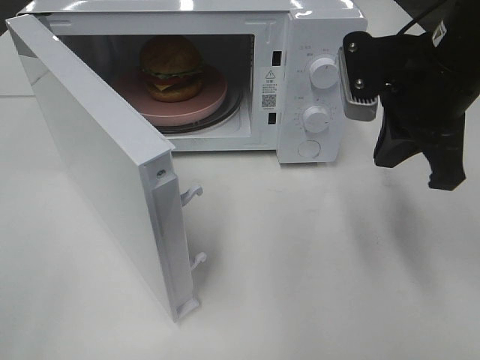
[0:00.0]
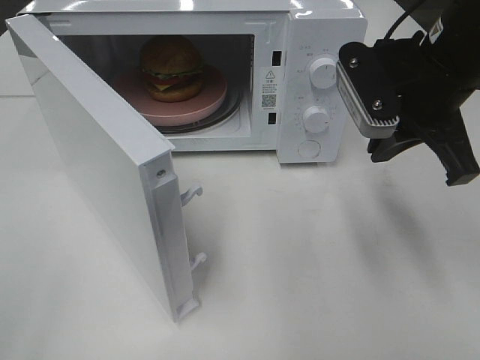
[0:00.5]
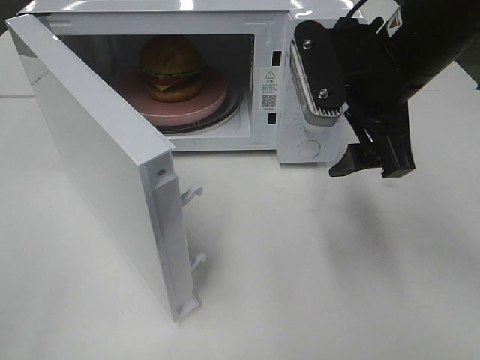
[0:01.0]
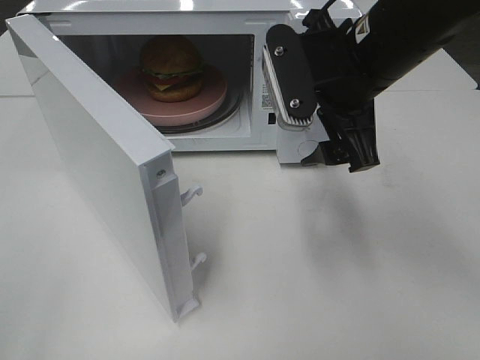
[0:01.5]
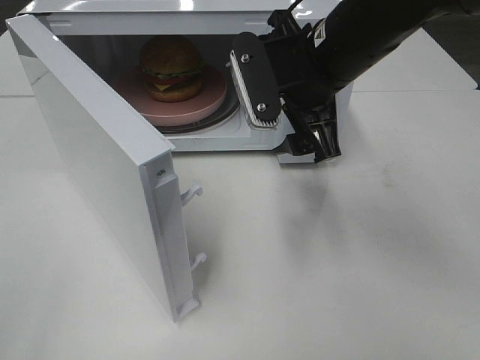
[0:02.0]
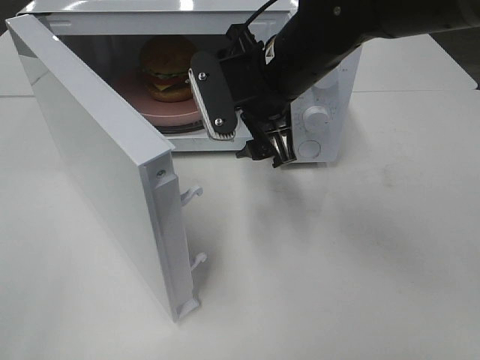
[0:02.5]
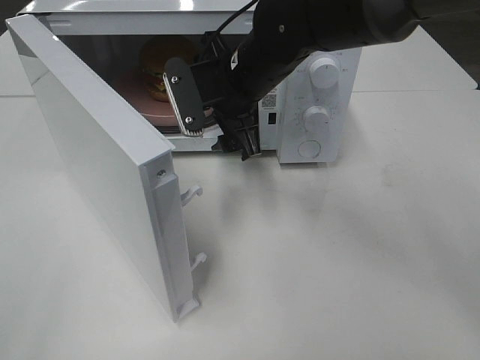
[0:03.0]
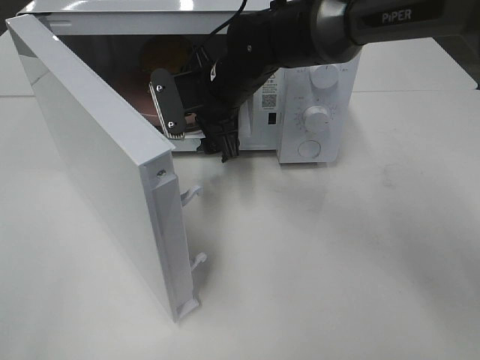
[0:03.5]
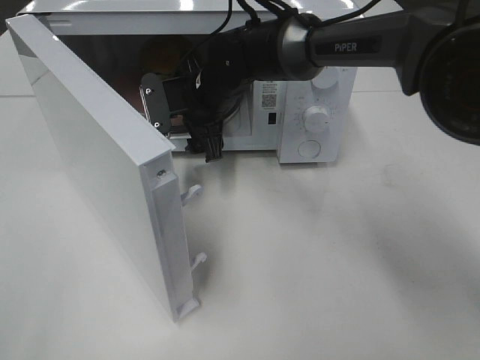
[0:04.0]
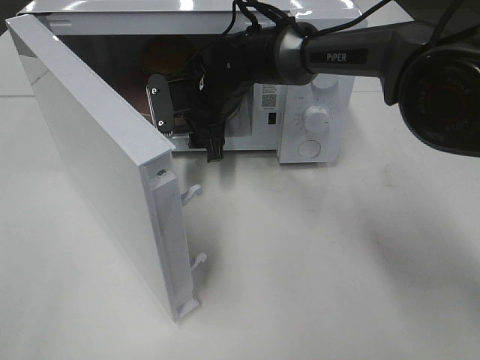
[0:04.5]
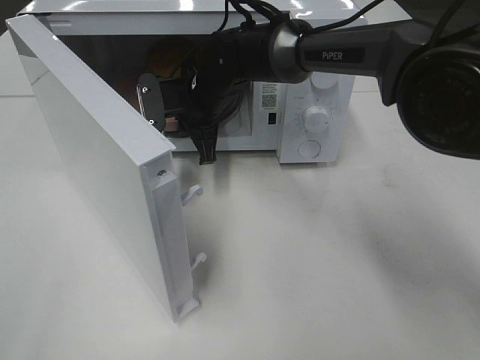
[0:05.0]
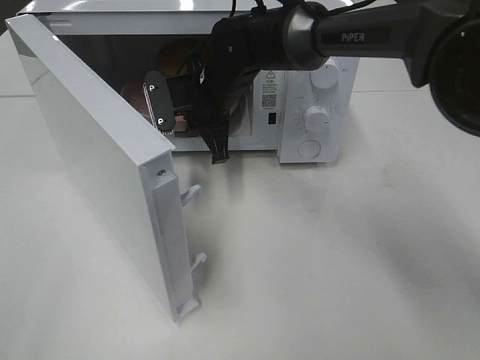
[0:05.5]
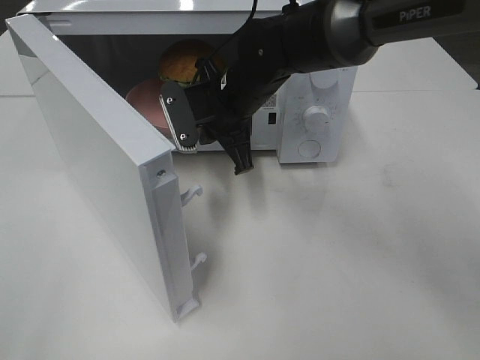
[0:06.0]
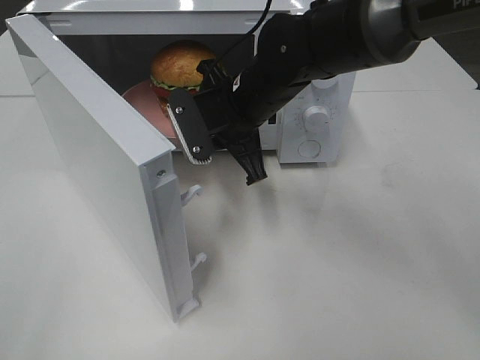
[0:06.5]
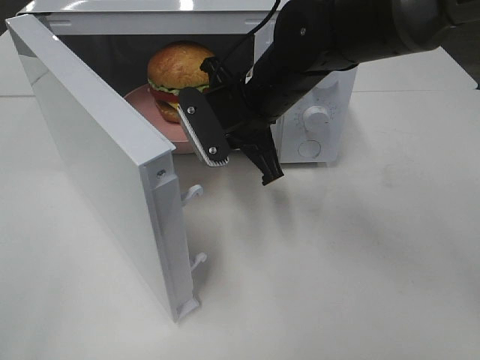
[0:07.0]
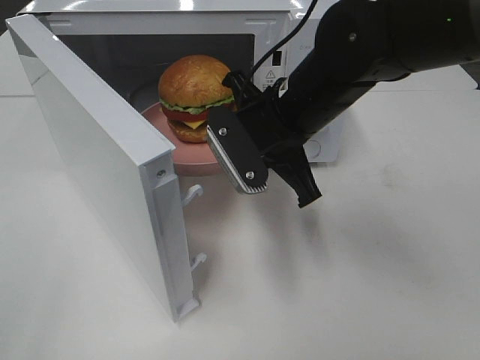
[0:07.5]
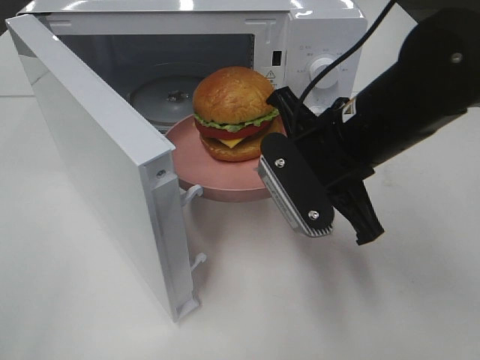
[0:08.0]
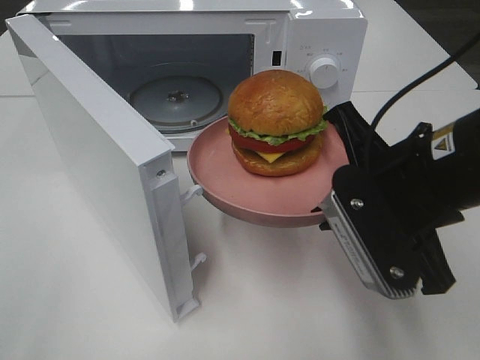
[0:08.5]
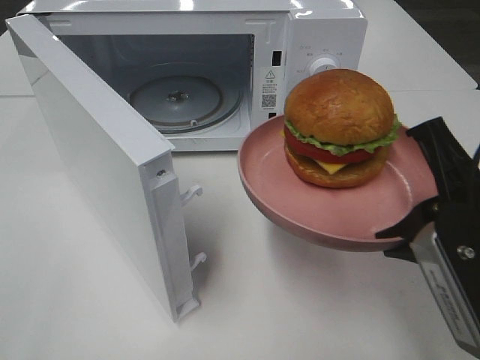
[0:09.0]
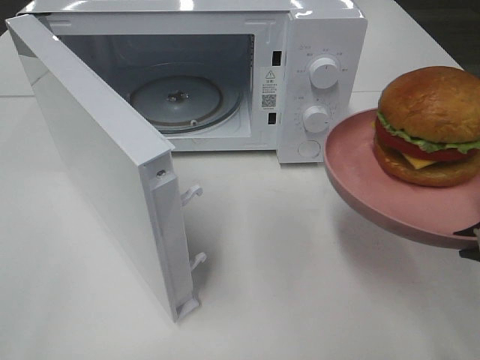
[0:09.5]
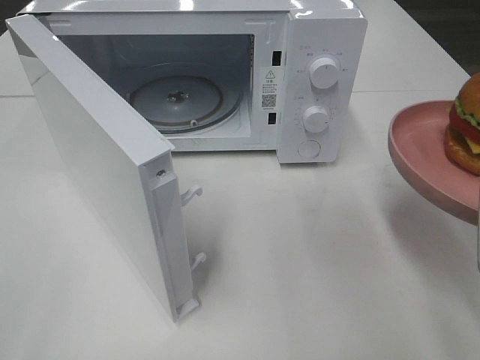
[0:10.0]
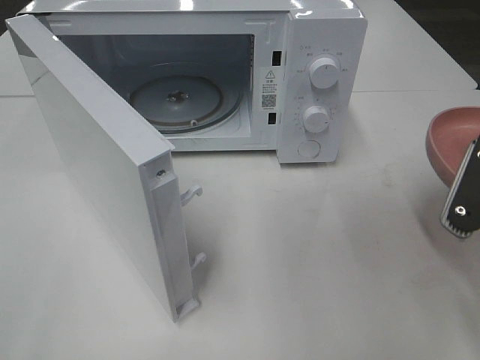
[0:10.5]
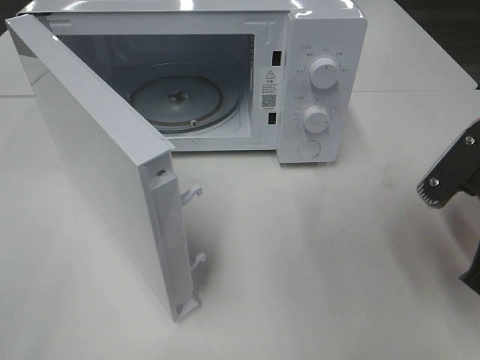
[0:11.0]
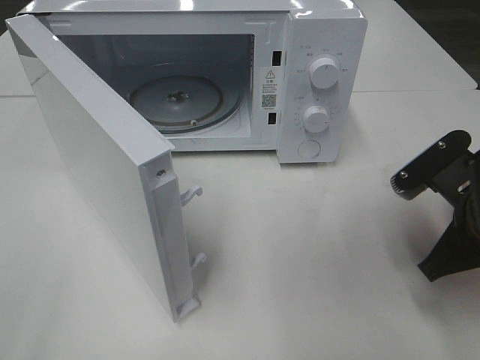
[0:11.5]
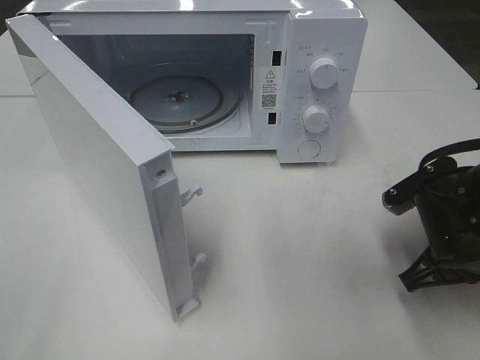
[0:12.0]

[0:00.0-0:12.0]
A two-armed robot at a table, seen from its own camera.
Task of the whole recording: Heat the burger.
Step, 0:00.0 to 0:04.5: Right hand: grab the plate with the hamburger.
0:00.0 to 0:02.0: The right gripper goes approximately 10 cm to the left, and opens.
0:02.0 to 0:04.0: The right gripper goes approximately 20 cm forward, to the left and downward.
0:04.0 to 0:06.0: The right gripper ends up approximately 5 cm from where it was, and closes its fingers.
0:06.0 to 0:08.0: The right gripper is displaced backward and to the right by roughly 15 cm.
0:08.0 to 0:10.0: The right gripper heads to the right and backward, covering approximately 20 cm.
0:10.0 to 0:12.0: The right gripper travels downward and forward by about 15 cm.

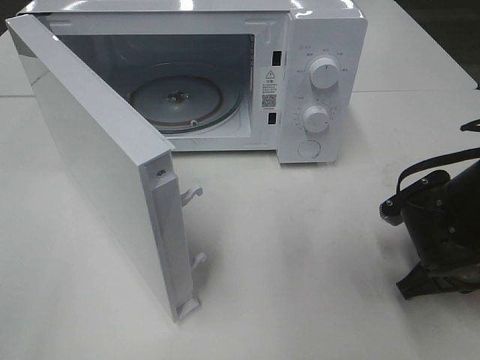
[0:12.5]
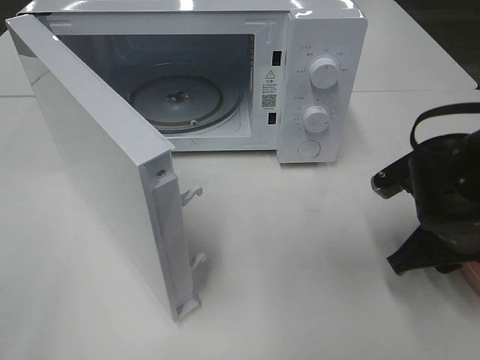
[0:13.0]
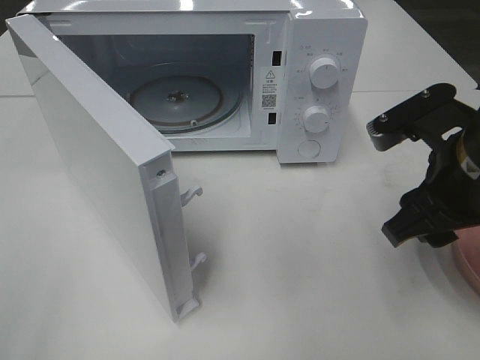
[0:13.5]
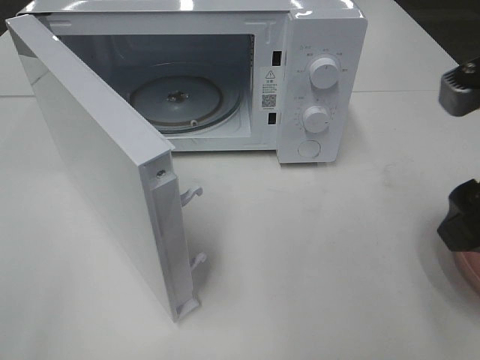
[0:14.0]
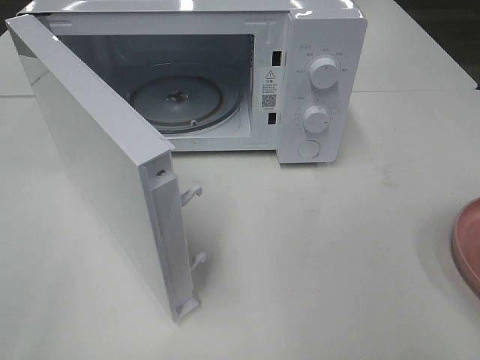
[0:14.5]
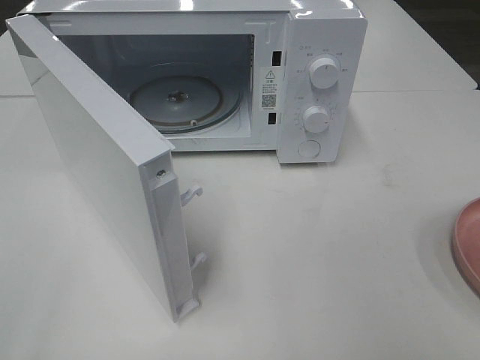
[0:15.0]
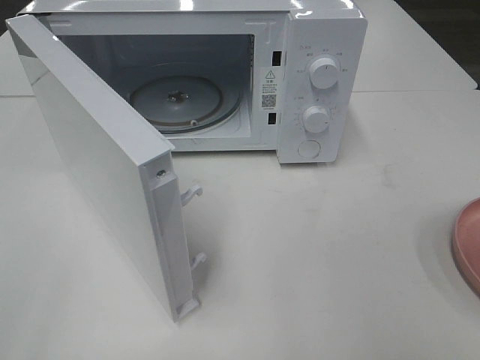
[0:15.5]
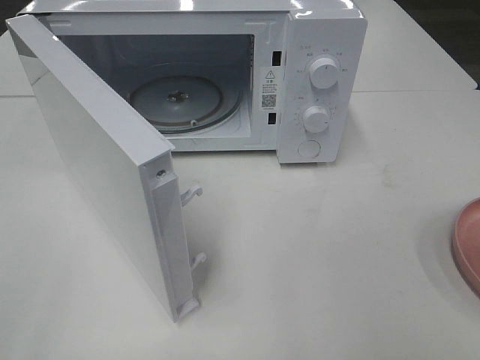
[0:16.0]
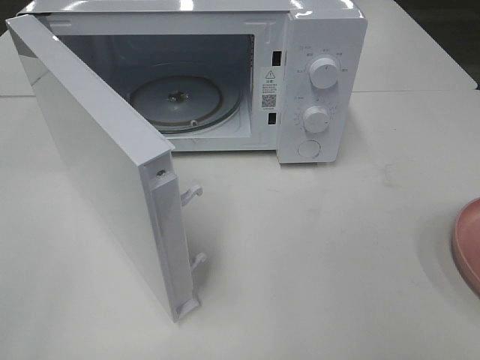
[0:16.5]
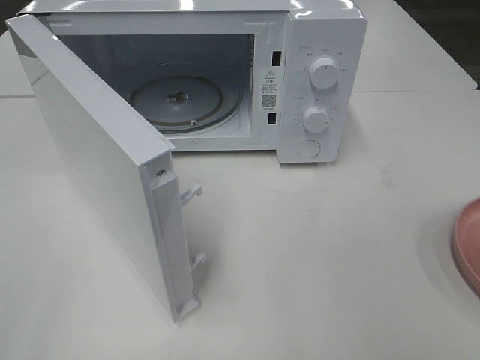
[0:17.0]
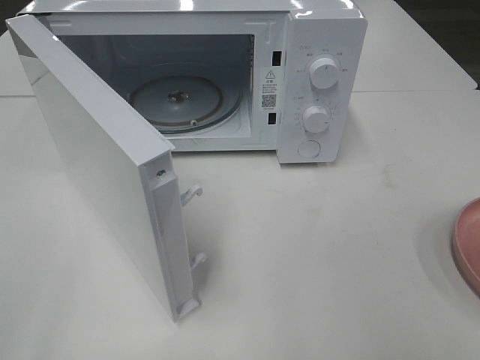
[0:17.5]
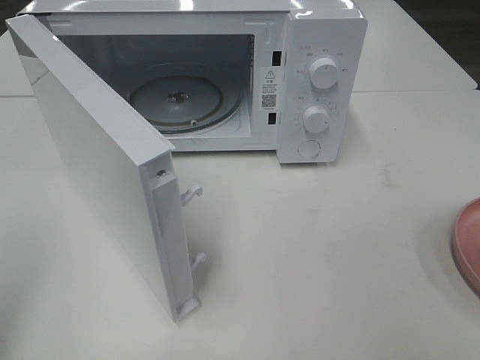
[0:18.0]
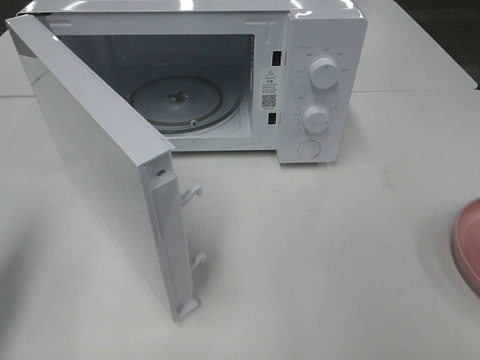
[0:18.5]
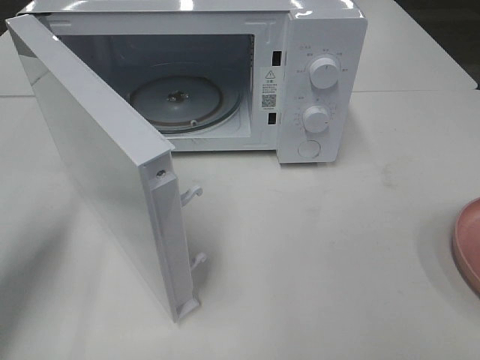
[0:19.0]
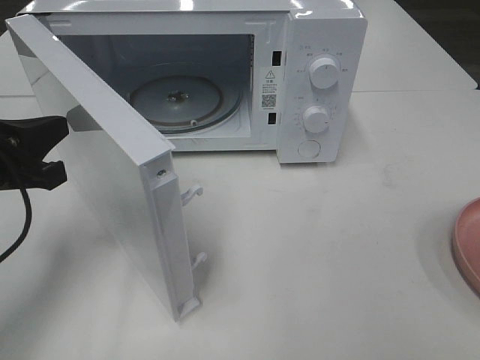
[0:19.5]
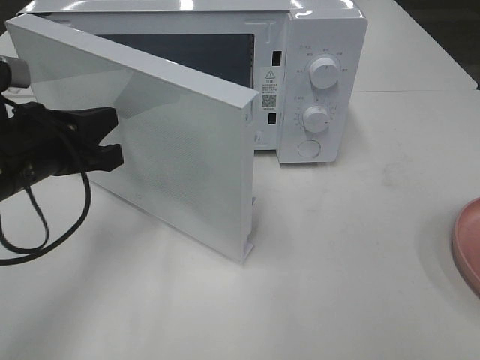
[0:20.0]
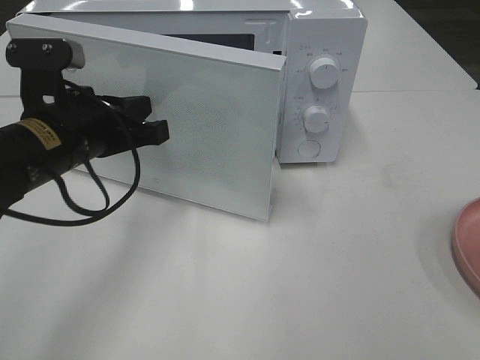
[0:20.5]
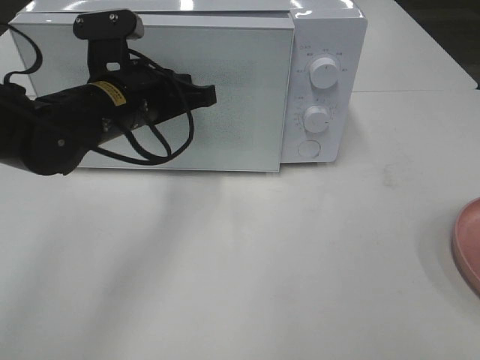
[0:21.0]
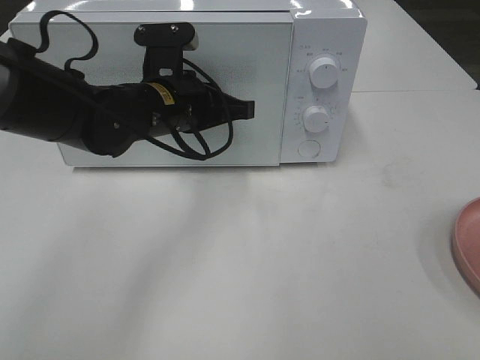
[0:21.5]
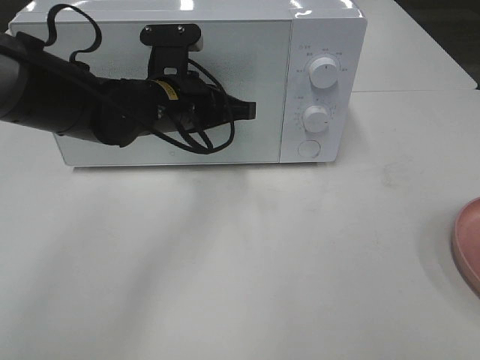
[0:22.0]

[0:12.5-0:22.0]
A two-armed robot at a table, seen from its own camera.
Task of the whole recording: Heat the burger.
0:12.5 to 0:14.5: The right gripper shifts approximately 25 cm upward and backward, and opens its fingers.
0:18.0 to 0:20.0: The left gripper shifts about 25 cm forward, downward and to the right.
0:20.0 to 0:22.0: The left gripper moves to the right and forward, approximately 15 cm.

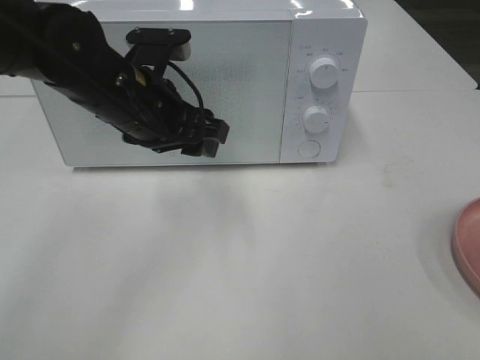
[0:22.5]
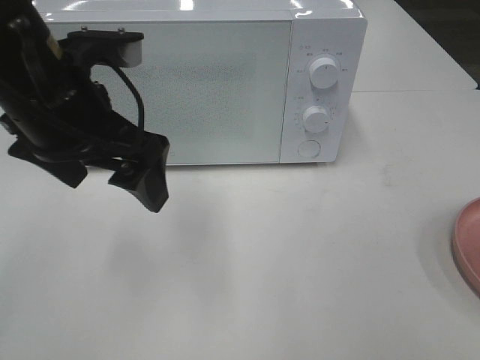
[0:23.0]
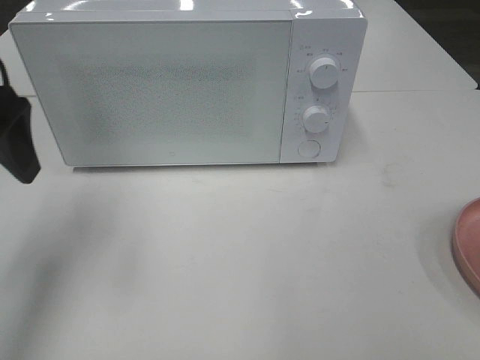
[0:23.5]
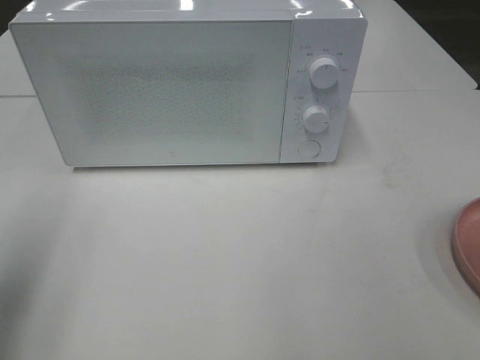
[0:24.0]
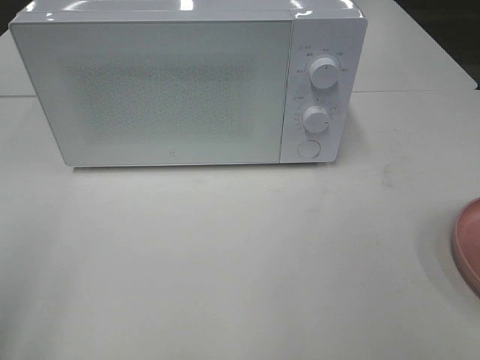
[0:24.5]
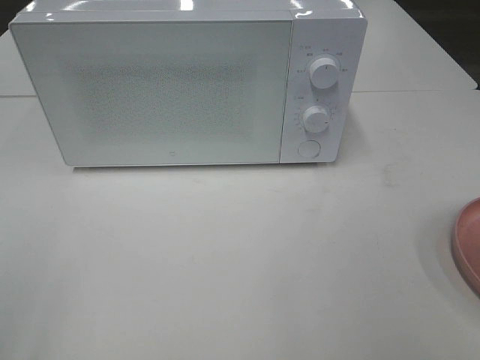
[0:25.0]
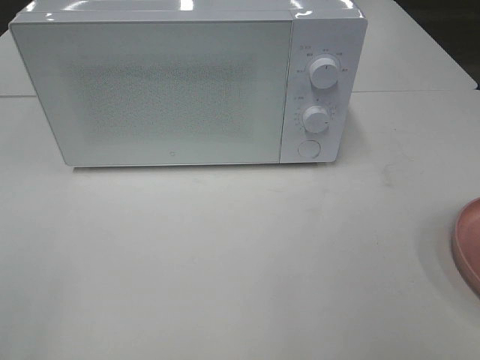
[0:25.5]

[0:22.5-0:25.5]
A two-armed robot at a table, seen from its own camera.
Task of the whole recording: Heat the burger.
0:22.5 to 0:24.0: The left gripper is displaced to the left and backward by about 25 cm.
0:24.0 to 0:25.5: The left gripper heads backward, covering approximately 15 cm.

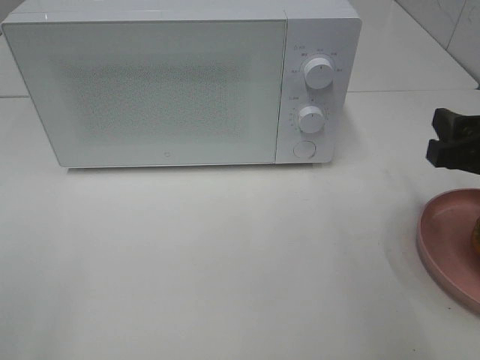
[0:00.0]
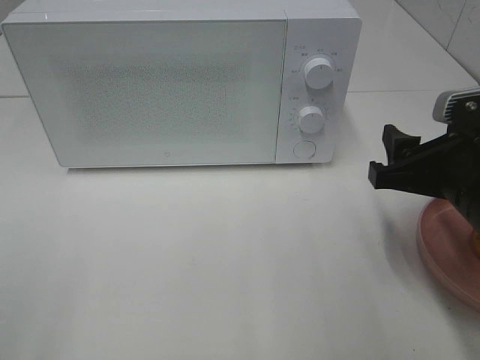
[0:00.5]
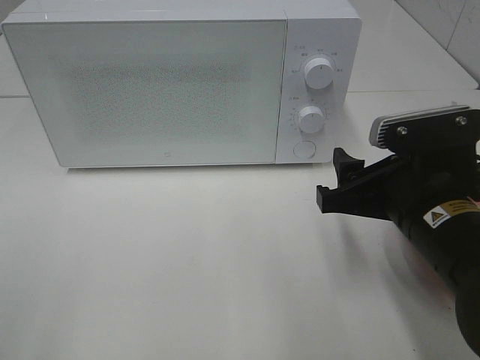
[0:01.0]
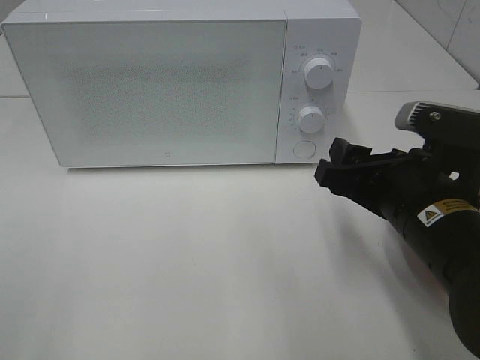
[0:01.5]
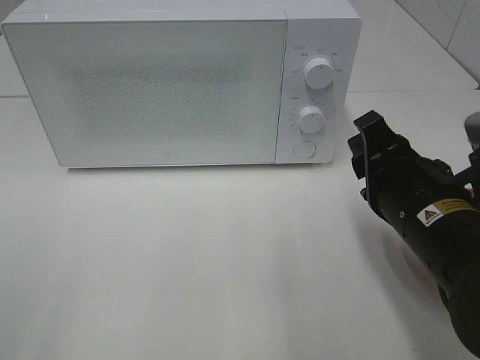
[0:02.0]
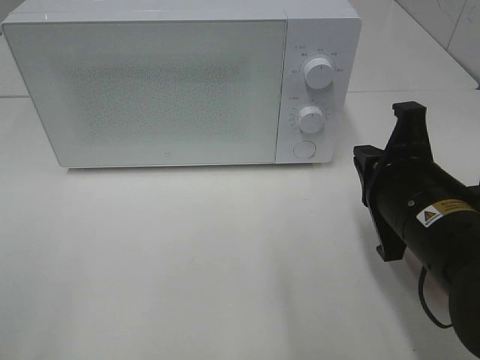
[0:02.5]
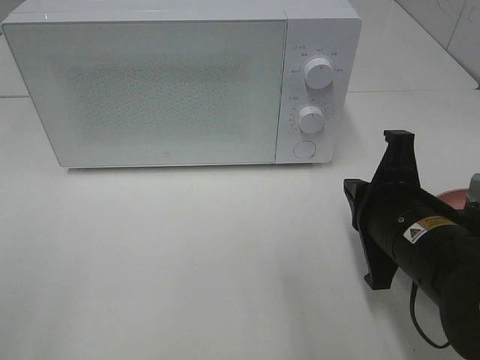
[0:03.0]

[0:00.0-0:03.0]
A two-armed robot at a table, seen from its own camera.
Task of the whole recording: Heat the burger.
0:00.0 to 0:01.5: The right gripper heads to the left, covering about 10 cm.
0:01.5 to 0:03.0: The right gripper closes.
